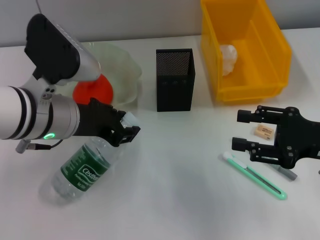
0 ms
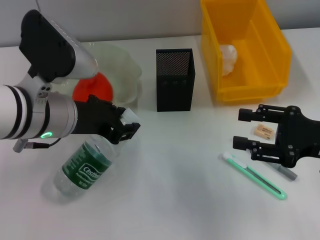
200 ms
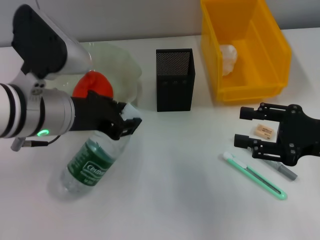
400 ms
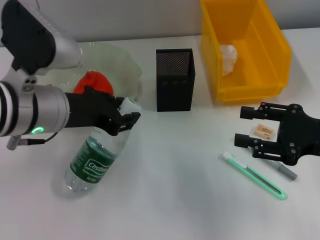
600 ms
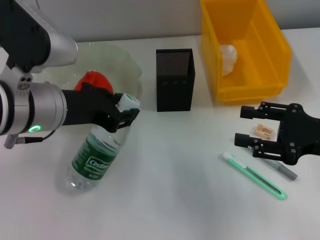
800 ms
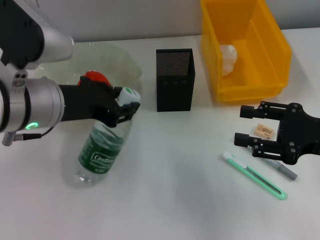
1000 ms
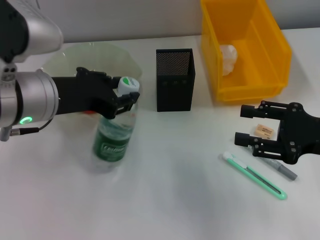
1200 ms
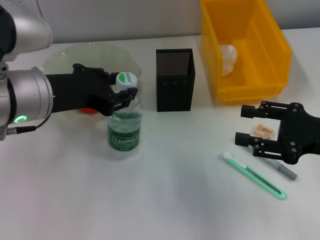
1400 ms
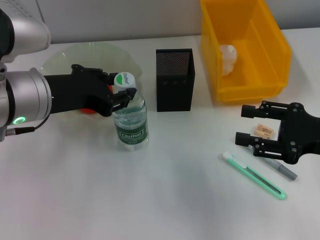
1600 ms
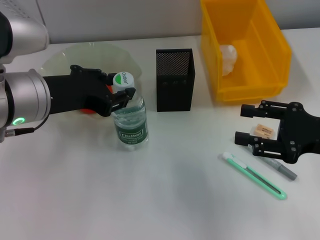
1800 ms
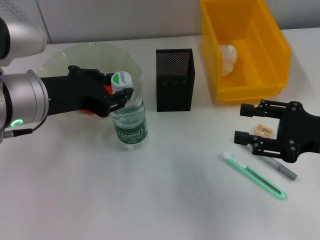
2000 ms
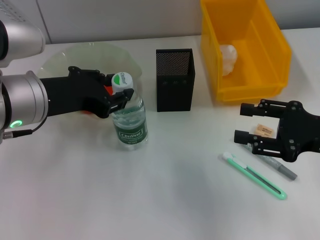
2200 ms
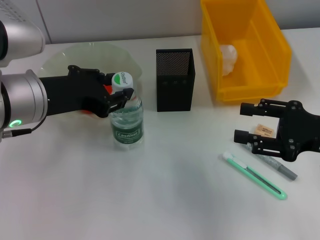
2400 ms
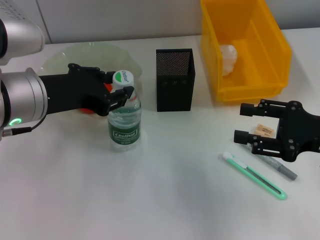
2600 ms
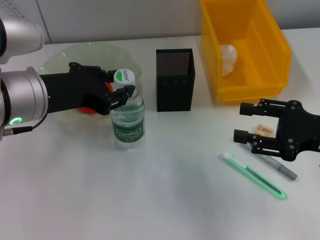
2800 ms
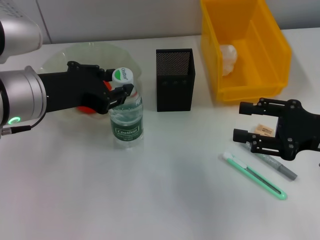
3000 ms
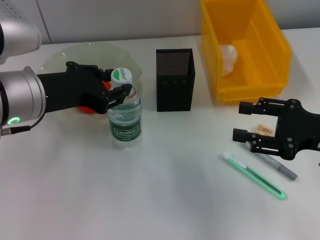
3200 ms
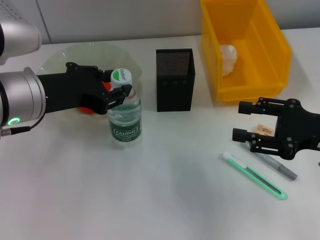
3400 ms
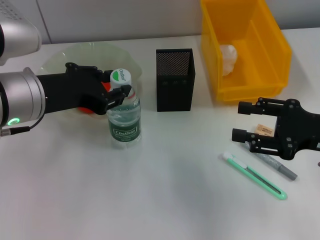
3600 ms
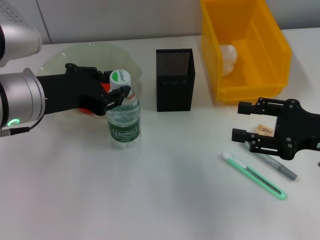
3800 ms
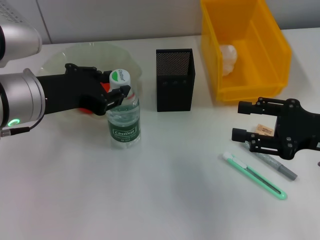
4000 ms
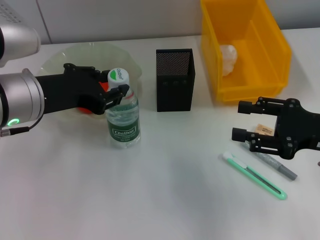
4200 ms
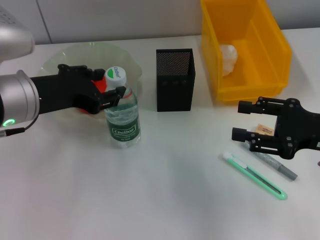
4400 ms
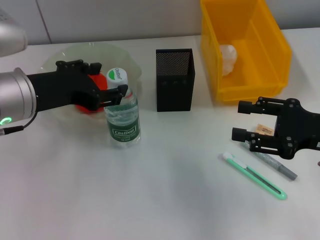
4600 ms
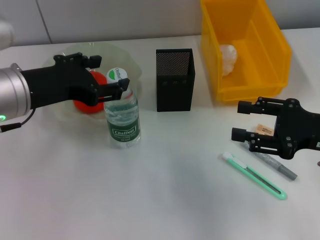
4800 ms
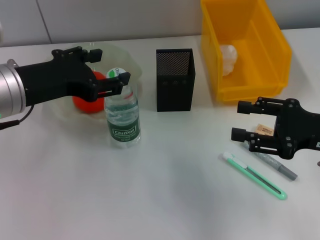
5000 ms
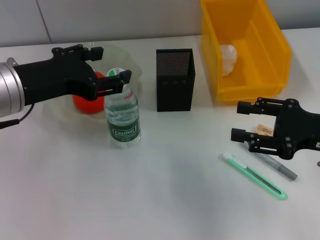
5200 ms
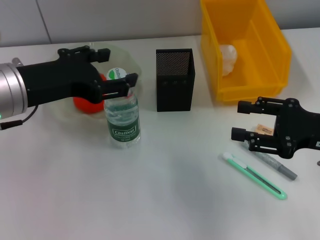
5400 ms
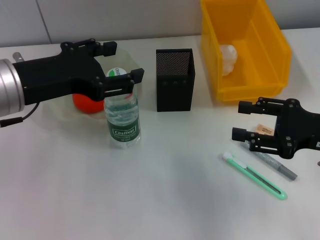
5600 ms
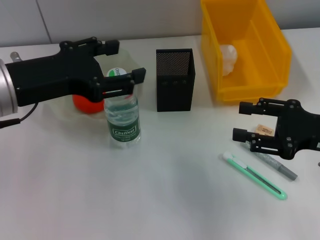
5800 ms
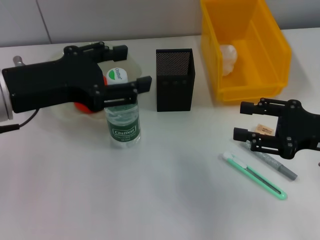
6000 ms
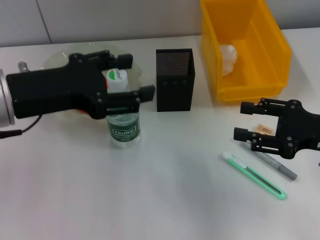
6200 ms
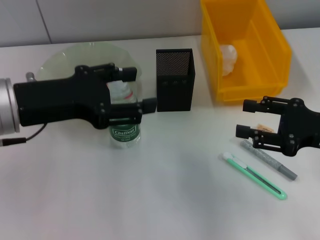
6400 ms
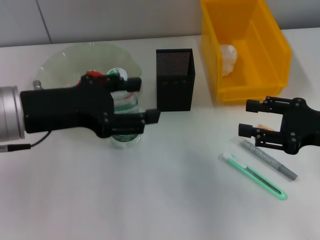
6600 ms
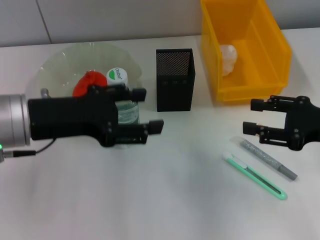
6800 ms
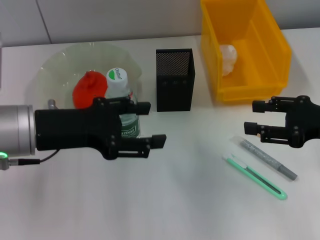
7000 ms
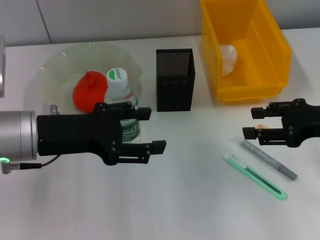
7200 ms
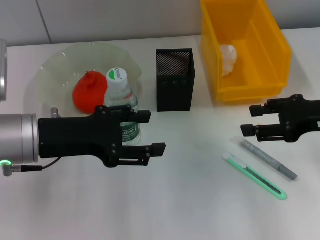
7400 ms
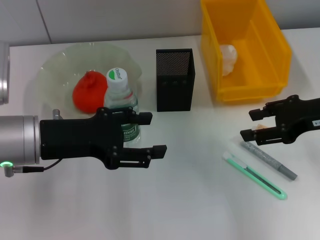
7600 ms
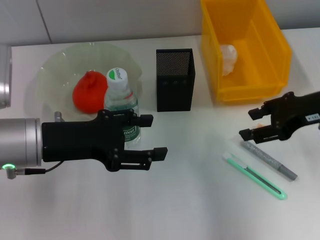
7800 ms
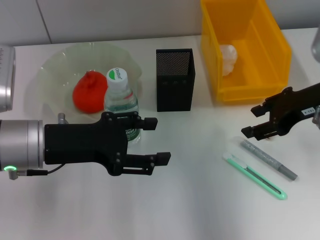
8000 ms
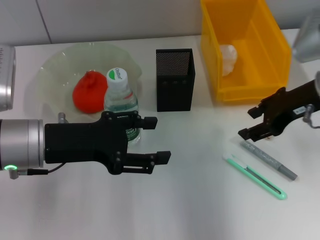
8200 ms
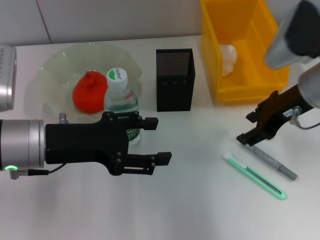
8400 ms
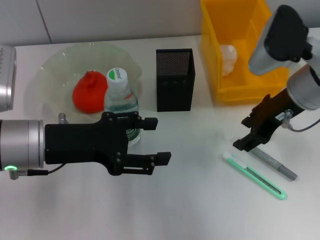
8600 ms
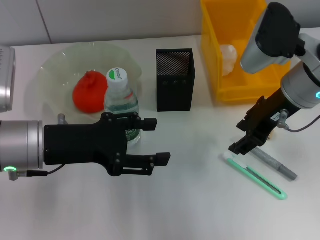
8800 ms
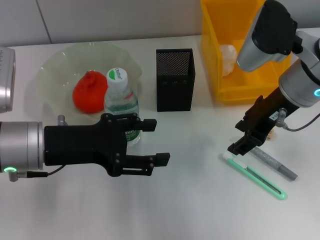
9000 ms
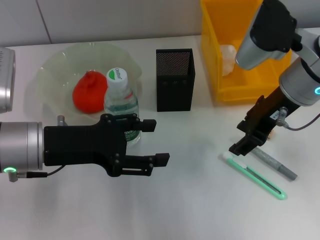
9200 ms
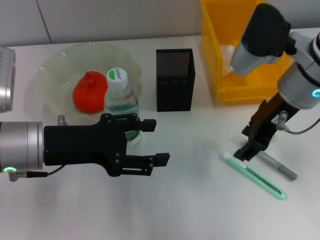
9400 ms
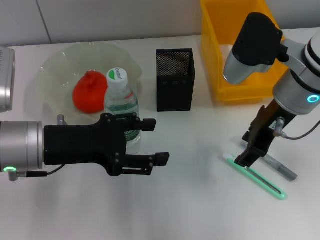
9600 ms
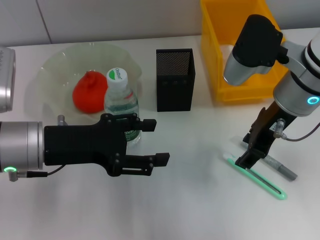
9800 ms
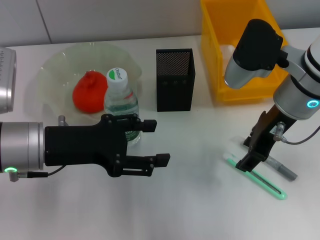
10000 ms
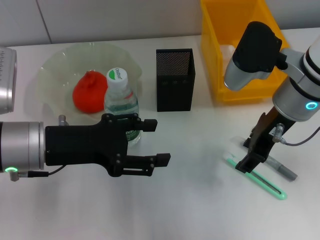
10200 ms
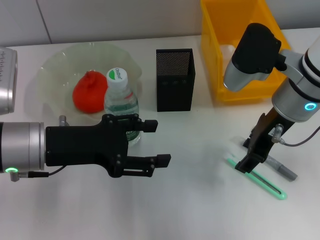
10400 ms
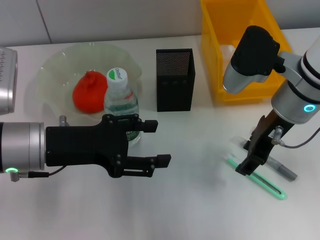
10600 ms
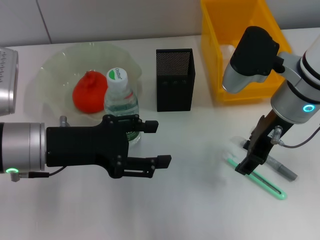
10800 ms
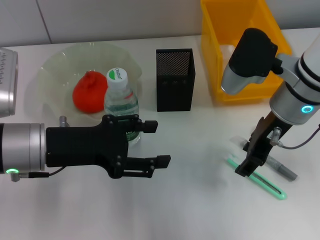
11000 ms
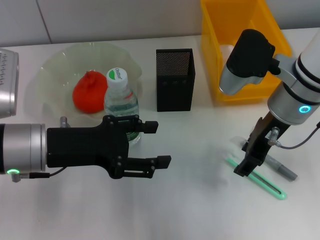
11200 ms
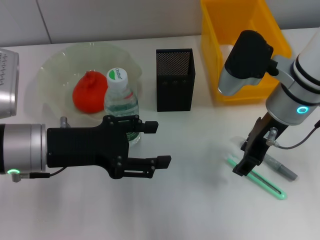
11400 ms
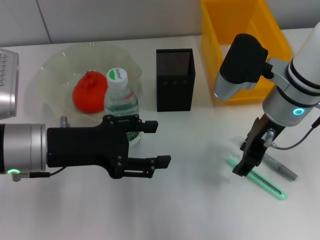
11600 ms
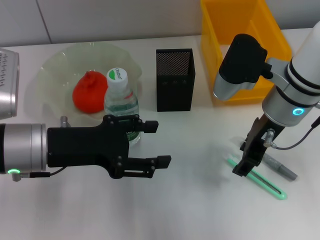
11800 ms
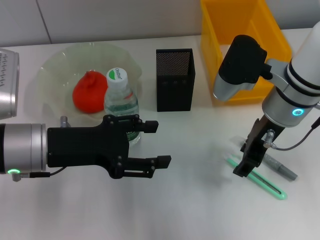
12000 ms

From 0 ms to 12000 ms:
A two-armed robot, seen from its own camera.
Step, from 0 ms to 5000 ms: Place the water bottle on the table with the left hand.
From 1600 ms to 3000 ms: Neither gripper changes place.
From 3000 ms to 4400 ms: The grippers make only small movements.
From 4400 ms to 6000 ms: The left gripper opens up.
From 6000 ms to 7600 ms: The right gripper changes place by roughly 5 cm, while the left gripper is displaced downward by some 5 cm.
From 7600 ms to 9000 ms: The right gripper shifts approximately 10 cm to the left.
From 9000 ms to 12000 ms: There are only small adjustments of the grippers.

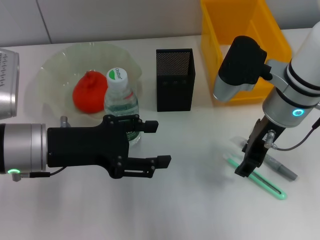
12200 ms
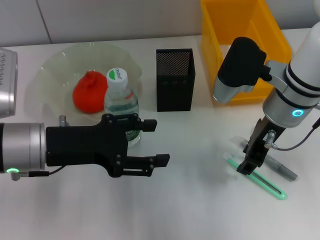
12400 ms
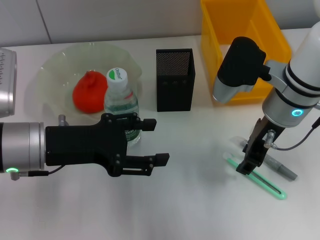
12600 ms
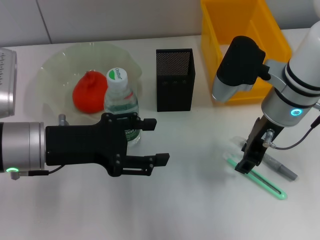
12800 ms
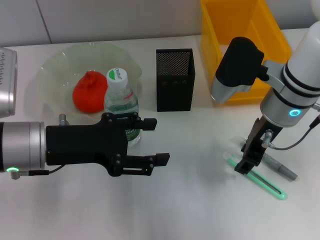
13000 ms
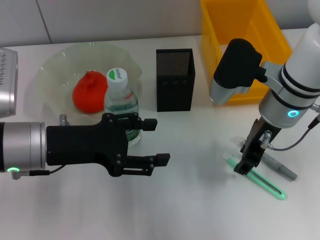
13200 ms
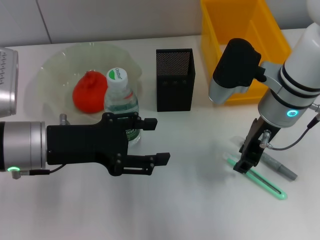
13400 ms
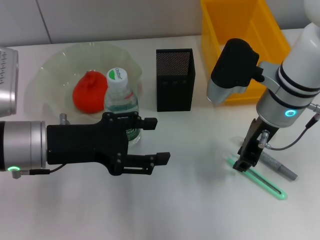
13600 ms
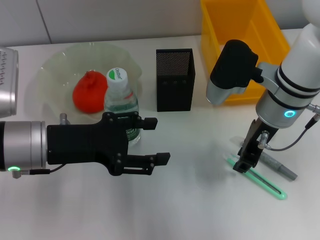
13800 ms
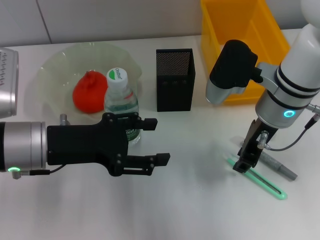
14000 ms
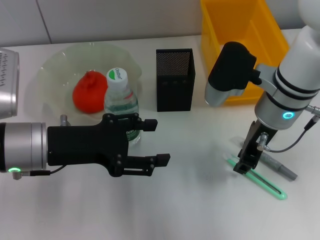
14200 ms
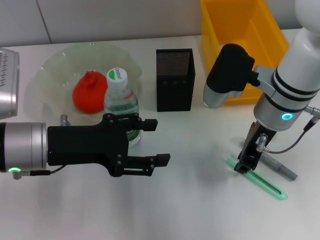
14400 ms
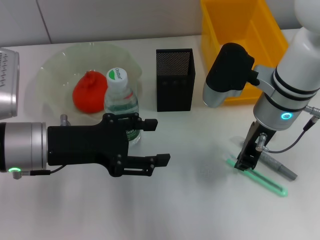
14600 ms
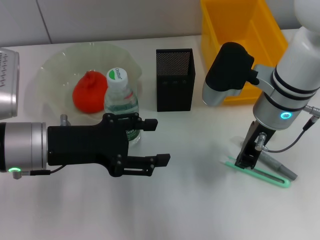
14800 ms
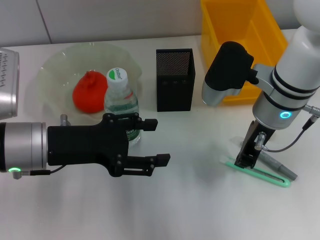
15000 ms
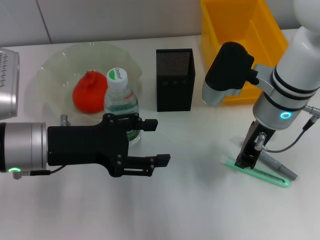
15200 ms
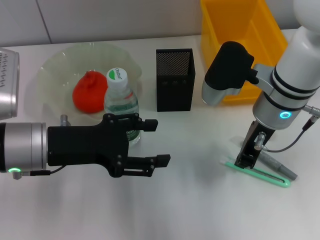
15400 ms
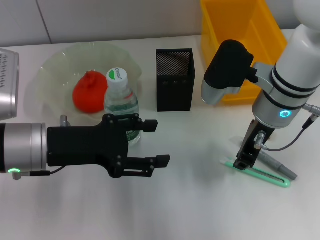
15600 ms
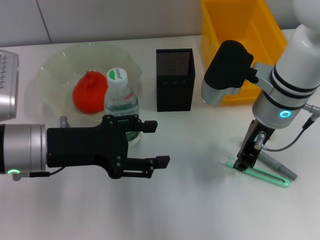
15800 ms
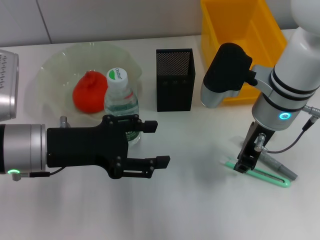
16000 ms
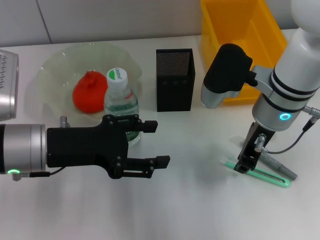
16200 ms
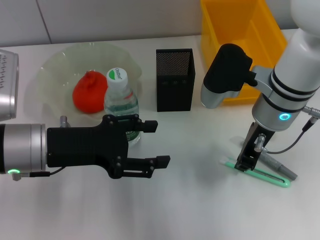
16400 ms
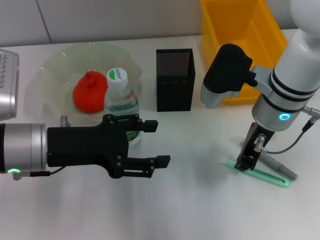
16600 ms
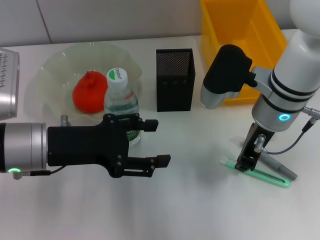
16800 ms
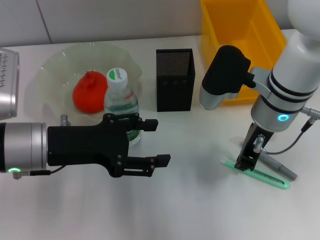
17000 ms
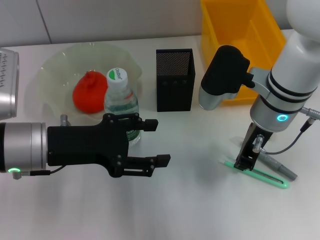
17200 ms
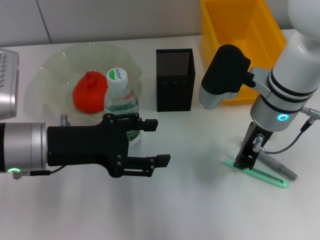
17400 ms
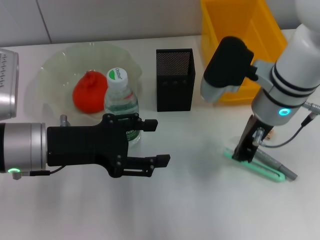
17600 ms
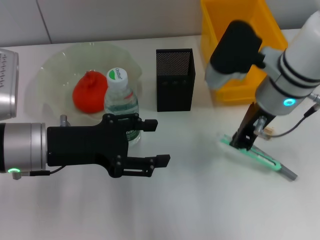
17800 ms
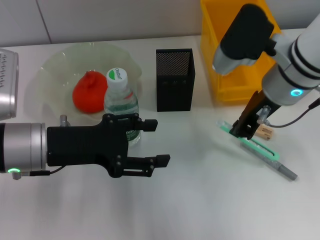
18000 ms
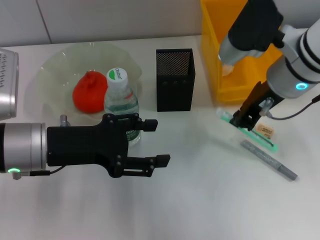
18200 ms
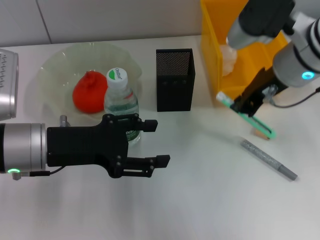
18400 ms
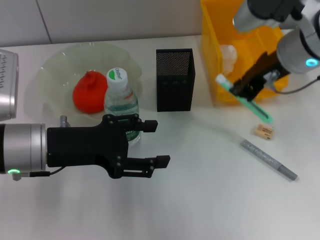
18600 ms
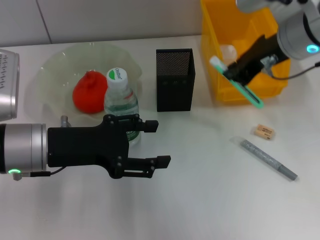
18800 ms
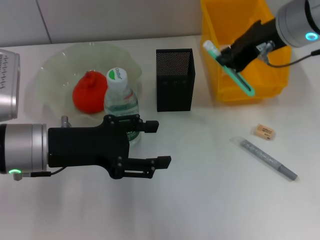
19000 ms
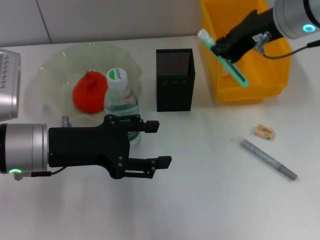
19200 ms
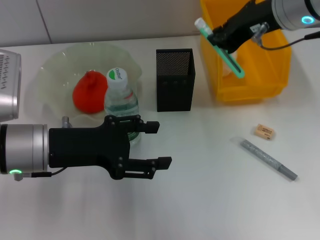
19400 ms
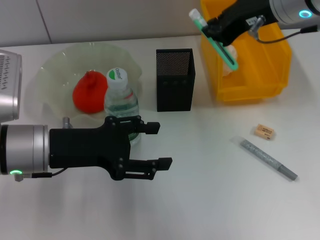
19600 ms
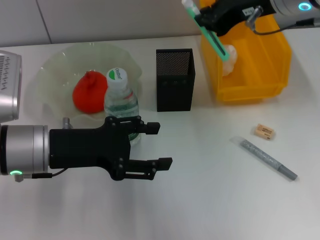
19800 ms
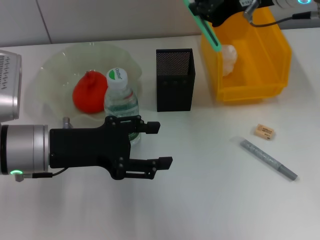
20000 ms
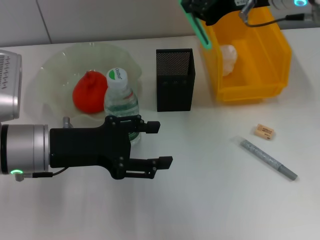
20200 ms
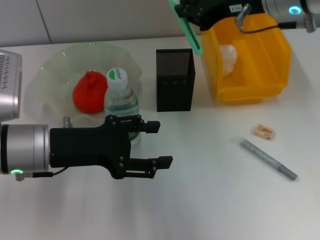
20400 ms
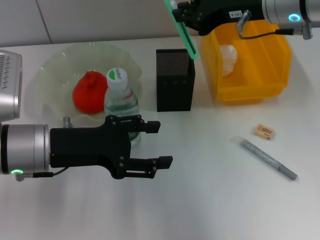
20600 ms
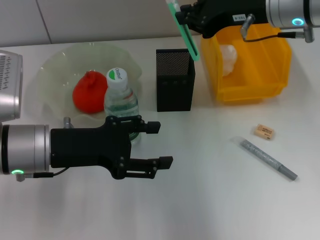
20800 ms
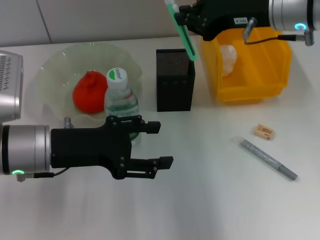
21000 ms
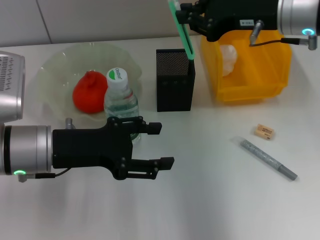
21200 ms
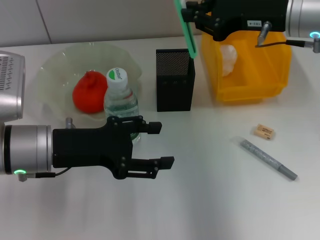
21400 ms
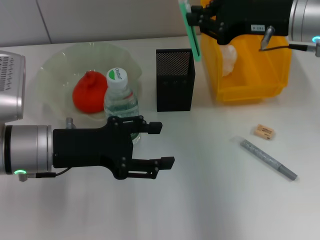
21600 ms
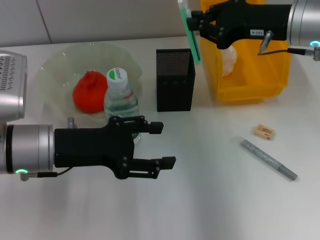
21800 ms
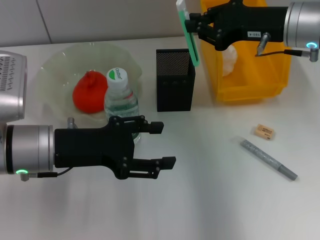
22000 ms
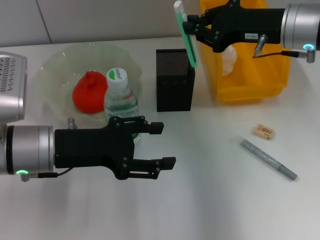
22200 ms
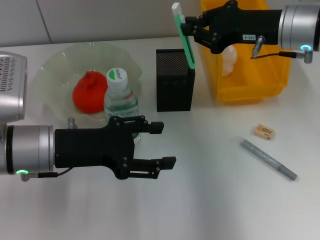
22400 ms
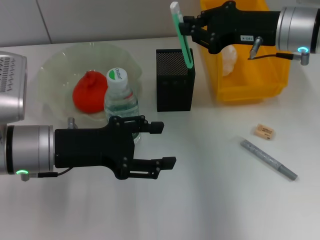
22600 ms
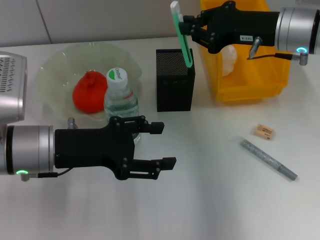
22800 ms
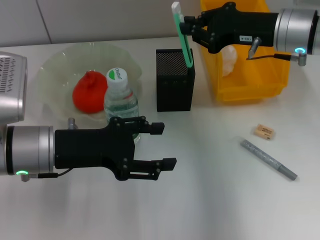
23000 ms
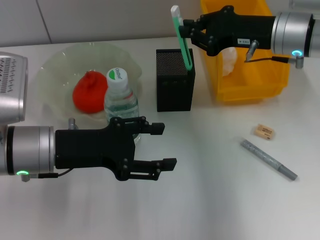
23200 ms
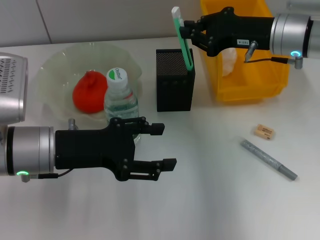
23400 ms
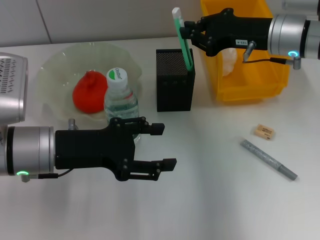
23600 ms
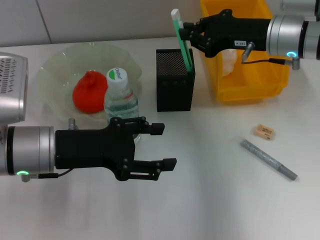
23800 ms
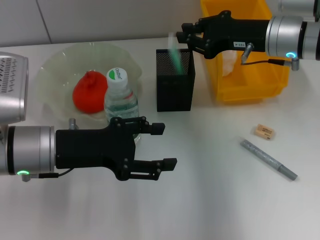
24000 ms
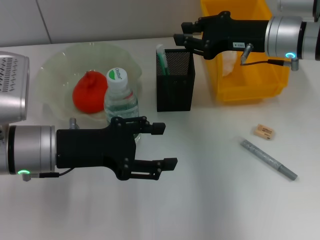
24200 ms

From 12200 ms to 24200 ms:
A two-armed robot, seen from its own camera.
Step, from 12200 ms to 16600 ms: Grab the blue utility knife with the right hand.
Step, from 16800 ms to 24000 ms: Place the blue utility knife into the pen holder with the right hand.
From 12200 ms to 13800 ms: The right gripper closes up.
From 13800 ms to 15200 ms: The right gripper closes up.
From 15200 ms to 16600 ms: Both grippers stay about where they are.
From 16600 ms to 18200 ms: The right gripper changes place by approximately 5 cm.
From 18200 ms to 19800 ms: The right gripper shifts approximately 10 cm upward.
From 19800 ms to 21200 ms: The right gripper moves approximately 5 cm.
From 21200 ms to 22600 ms: The grippers make only small movements.
From 22600 ms to 24200 ms: The grippers move only a little.
